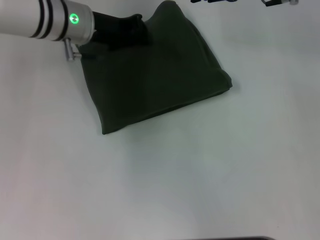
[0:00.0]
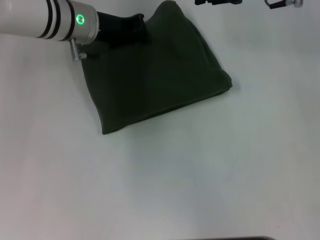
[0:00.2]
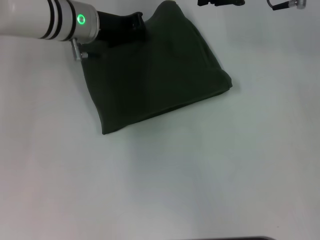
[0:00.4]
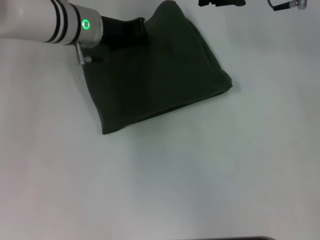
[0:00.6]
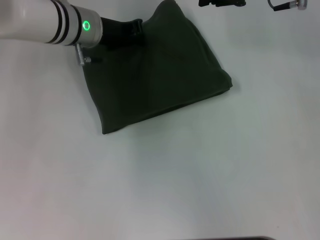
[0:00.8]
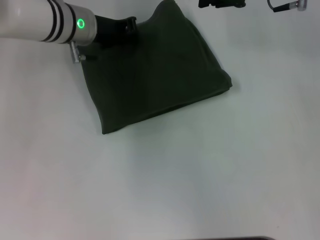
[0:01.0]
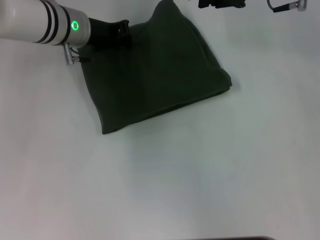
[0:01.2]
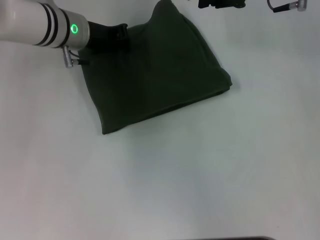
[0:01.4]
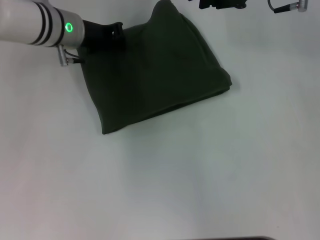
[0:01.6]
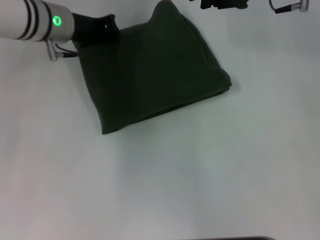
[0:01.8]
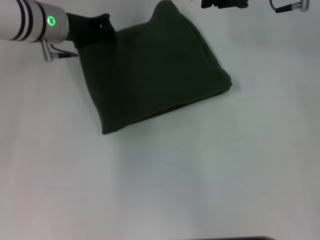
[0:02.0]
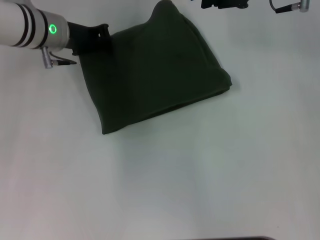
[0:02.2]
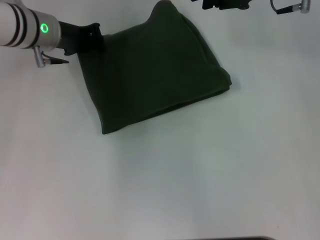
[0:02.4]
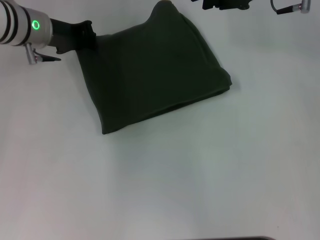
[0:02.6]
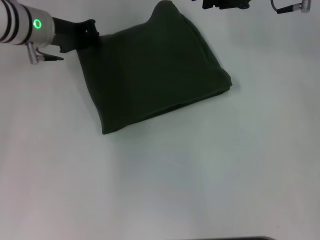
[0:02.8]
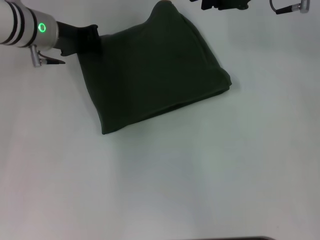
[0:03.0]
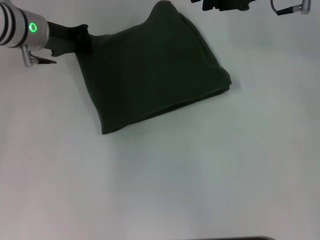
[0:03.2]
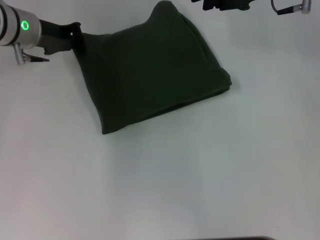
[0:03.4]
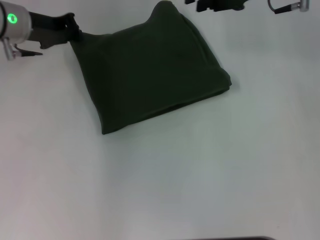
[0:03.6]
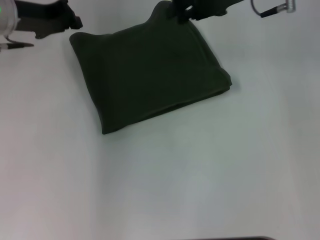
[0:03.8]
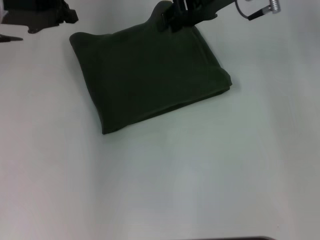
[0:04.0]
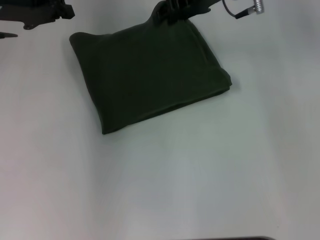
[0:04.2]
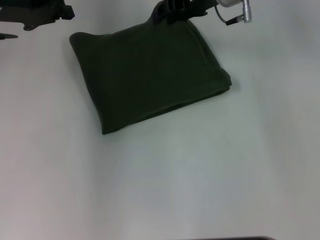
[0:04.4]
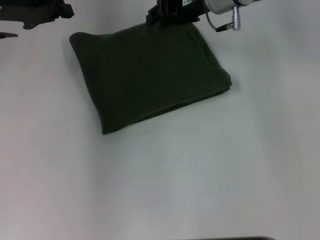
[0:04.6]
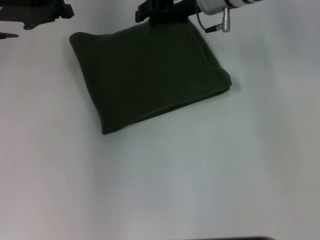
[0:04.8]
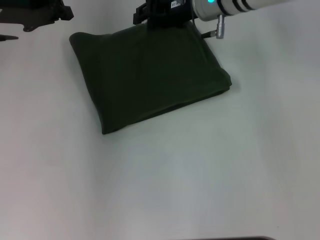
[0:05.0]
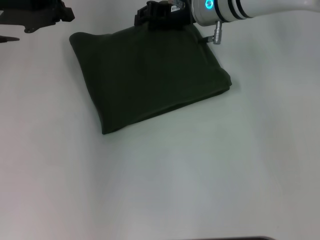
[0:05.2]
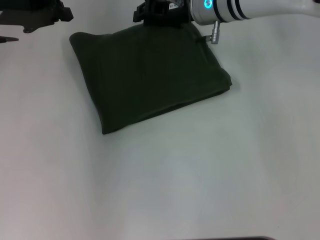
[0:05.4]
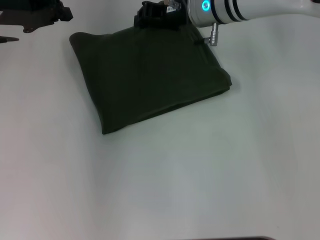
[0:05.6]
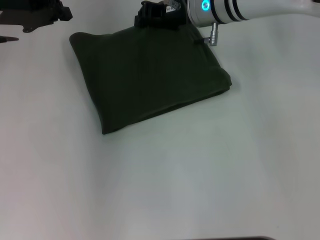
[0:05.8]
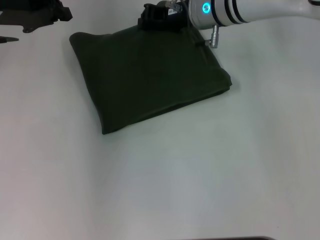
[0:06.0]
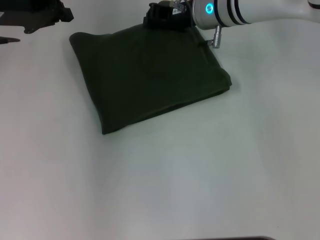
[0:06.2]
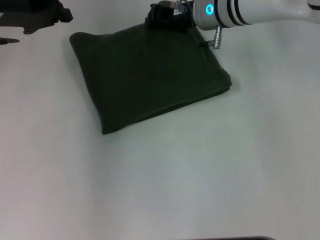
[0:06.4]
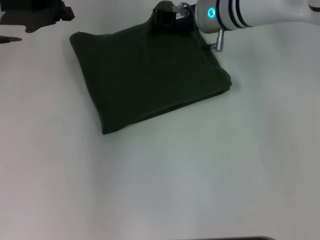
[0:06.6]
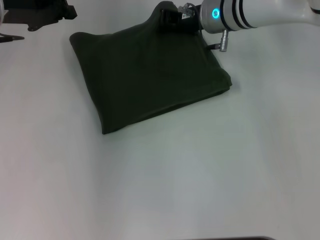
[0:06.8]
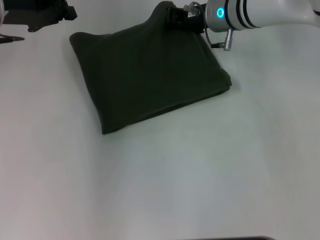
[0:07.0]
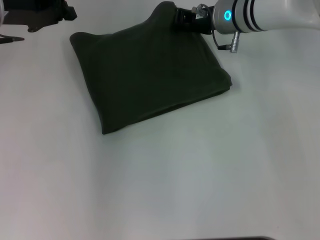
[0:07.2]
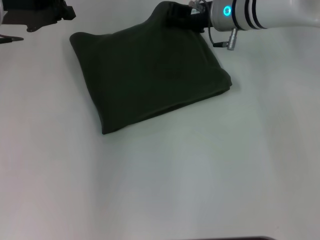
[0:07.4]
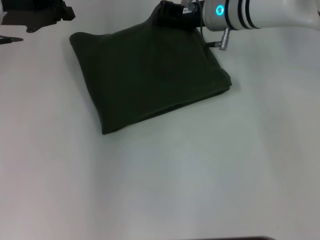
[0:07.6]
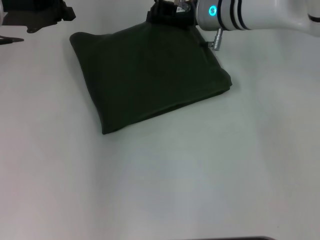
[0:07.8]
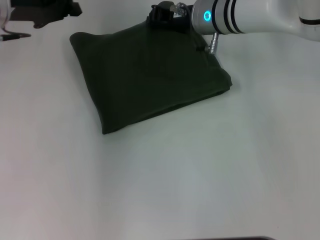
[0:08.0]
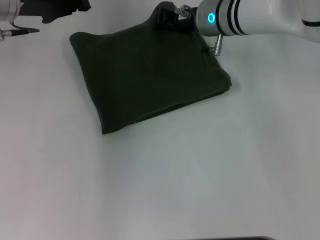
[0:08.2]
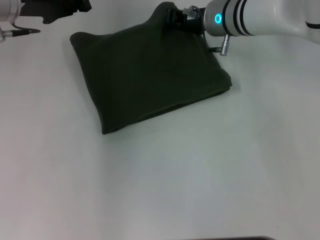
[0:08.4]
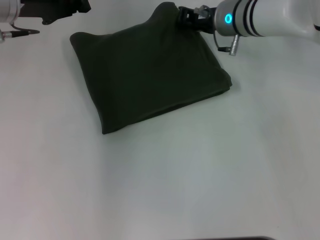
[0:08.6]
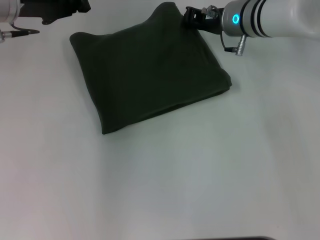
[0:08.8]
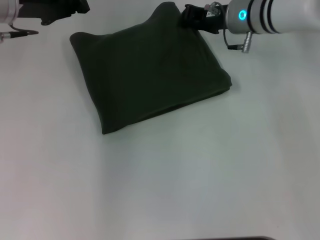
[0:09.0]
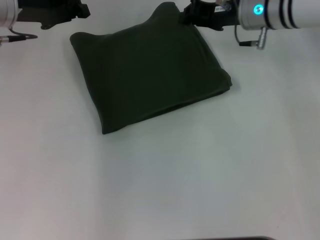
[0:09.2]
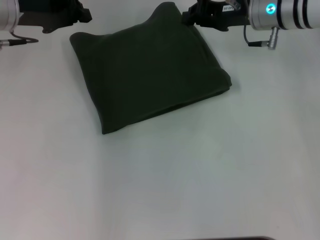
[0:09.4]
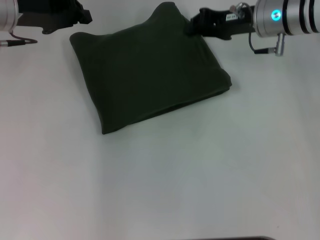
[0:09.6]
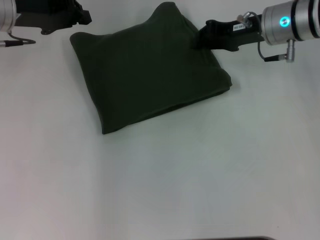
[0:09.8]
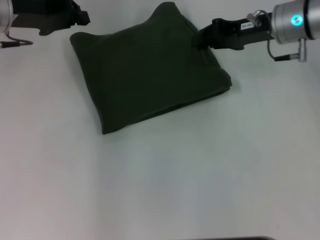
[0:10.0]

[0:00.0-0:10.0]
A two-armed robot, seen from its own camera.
0:00.0 to 0:01.4: There are only small adjustments of the grippers.
0:01.4 to 0:02.8: The grippers make only small movements.
0:02.8 to 0:04.2: The right gripper shifts about 10 cm to the left; the left gripper moves upward and to the left, about 10 cm.
0:04.2 to 0:05.8: The right gripper moves downward, approximately 5 cm.
0:05.8 to 0:08.6: The grippers stay close to where they were, moving slightly.
0:08.6 to 0:10.0: The right gripper is displaced to the right by about 10 cm.

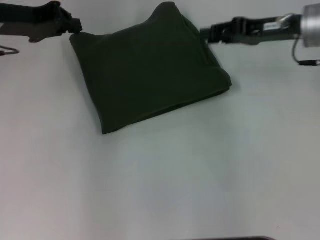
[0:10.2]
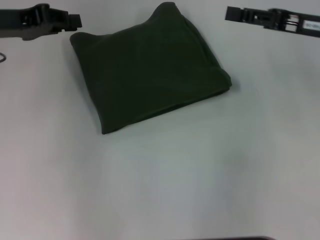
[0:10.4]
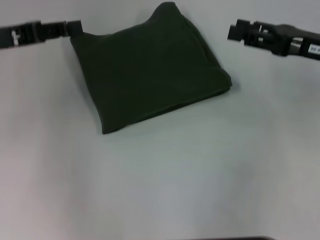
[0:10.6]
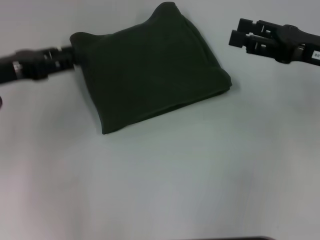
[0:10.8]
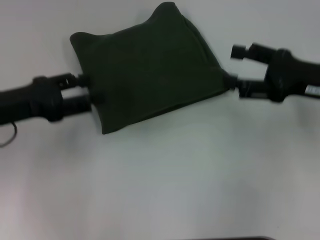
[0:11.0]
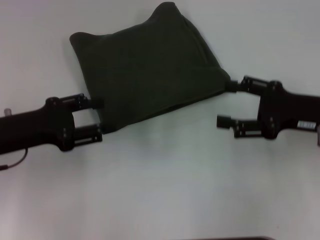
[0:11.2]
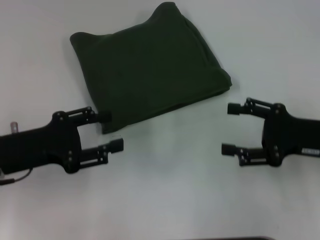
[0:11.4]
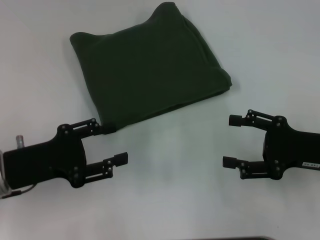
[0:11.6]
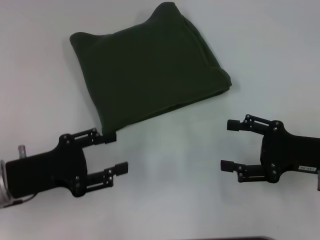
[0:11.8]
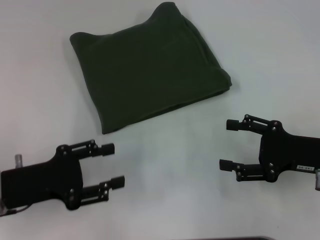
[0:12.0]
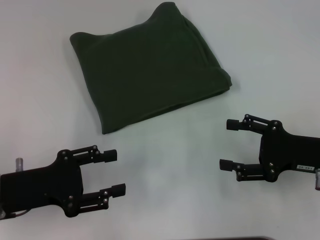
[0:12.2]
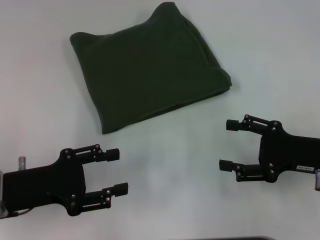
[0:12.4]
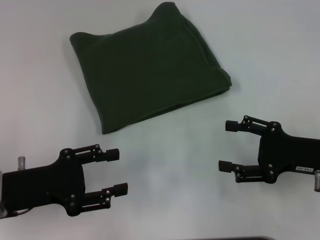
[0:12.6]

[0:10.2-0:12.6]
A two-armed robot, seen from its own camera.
0:10.2 to 0:11.4: The two grippers go about 15 cm backward and downward. The left gripper opens up. The right gripper opens its fingers.

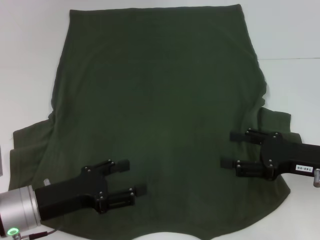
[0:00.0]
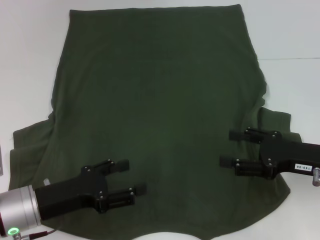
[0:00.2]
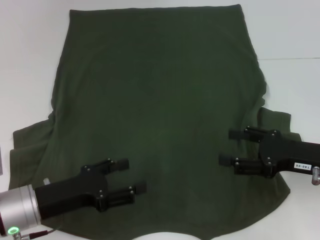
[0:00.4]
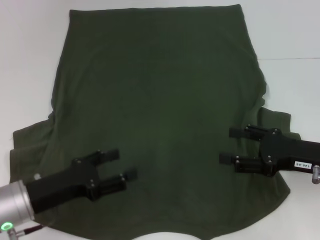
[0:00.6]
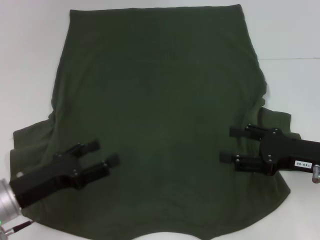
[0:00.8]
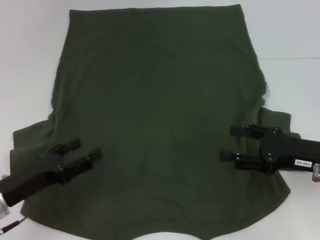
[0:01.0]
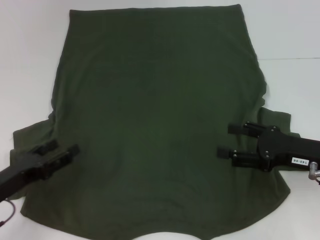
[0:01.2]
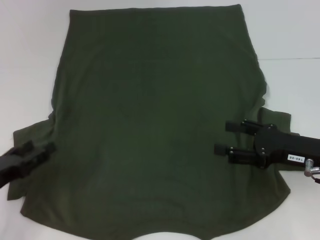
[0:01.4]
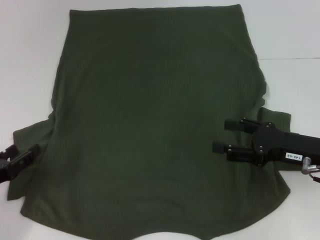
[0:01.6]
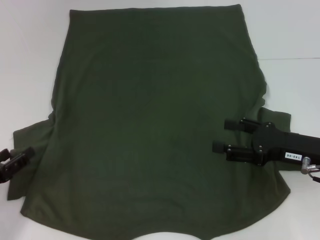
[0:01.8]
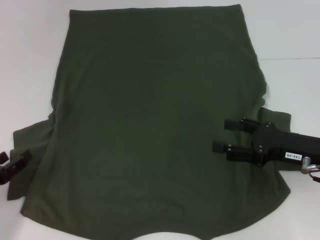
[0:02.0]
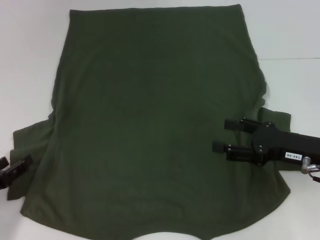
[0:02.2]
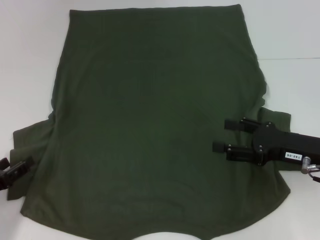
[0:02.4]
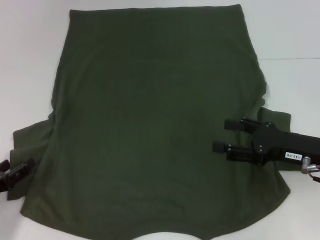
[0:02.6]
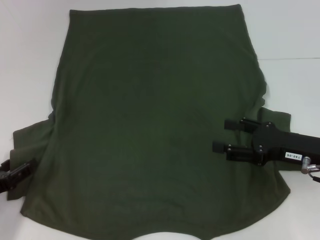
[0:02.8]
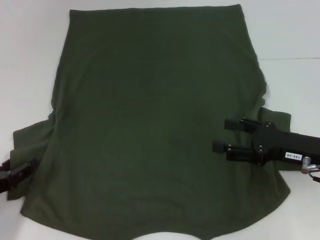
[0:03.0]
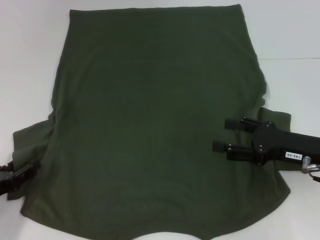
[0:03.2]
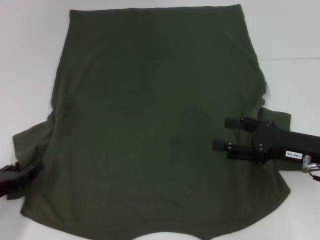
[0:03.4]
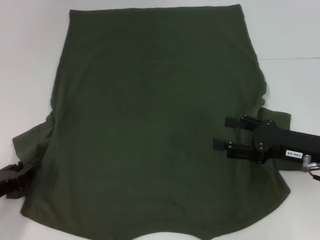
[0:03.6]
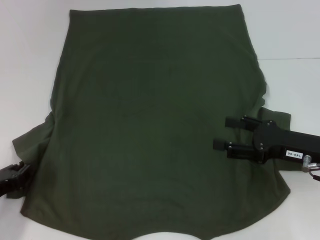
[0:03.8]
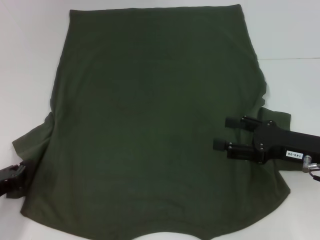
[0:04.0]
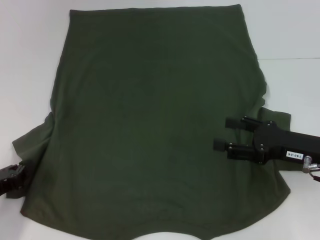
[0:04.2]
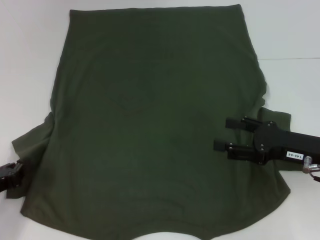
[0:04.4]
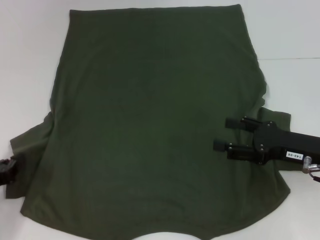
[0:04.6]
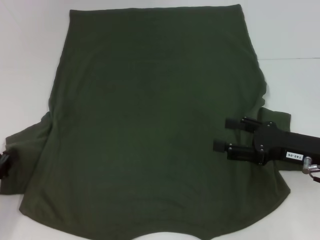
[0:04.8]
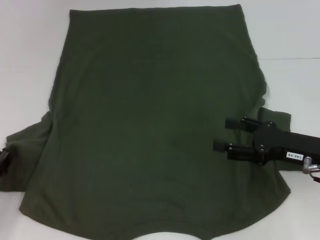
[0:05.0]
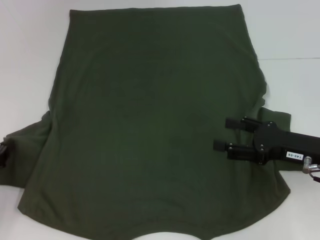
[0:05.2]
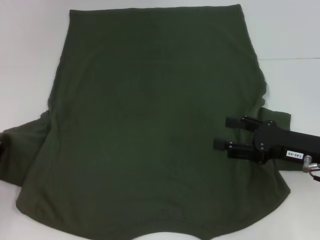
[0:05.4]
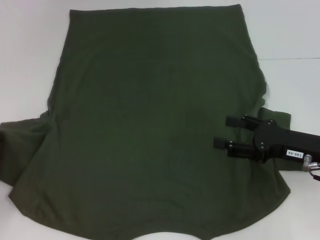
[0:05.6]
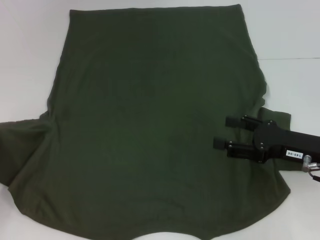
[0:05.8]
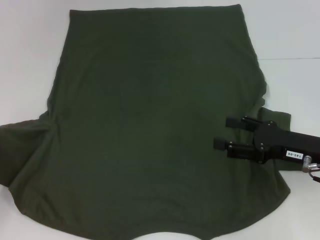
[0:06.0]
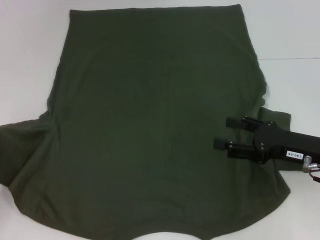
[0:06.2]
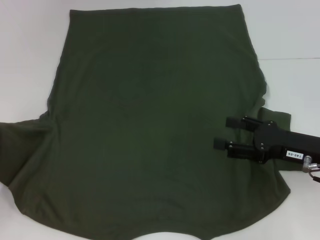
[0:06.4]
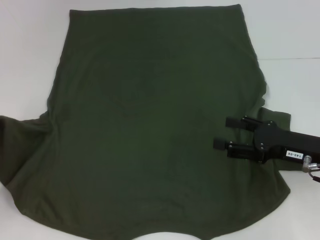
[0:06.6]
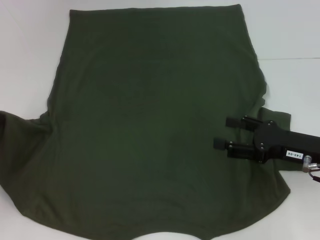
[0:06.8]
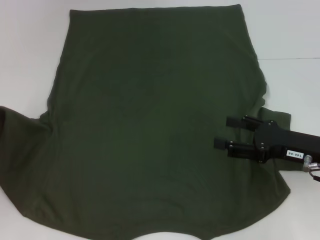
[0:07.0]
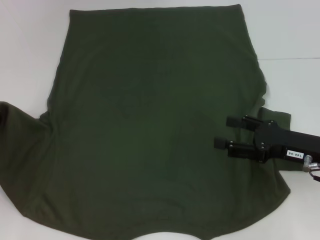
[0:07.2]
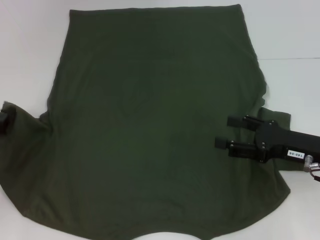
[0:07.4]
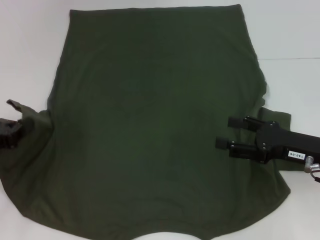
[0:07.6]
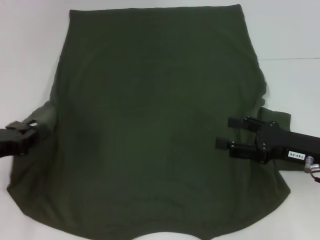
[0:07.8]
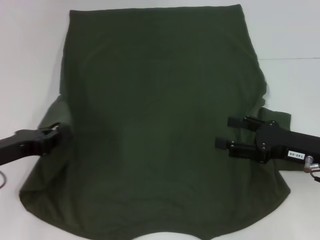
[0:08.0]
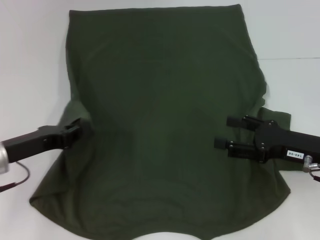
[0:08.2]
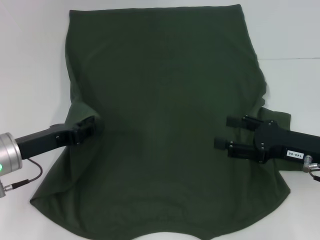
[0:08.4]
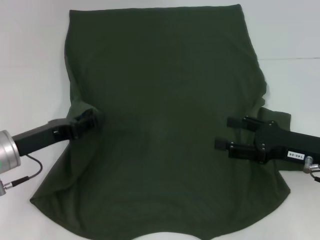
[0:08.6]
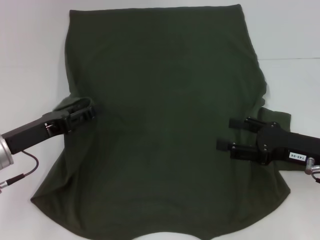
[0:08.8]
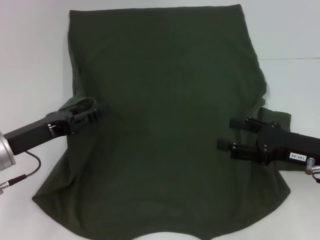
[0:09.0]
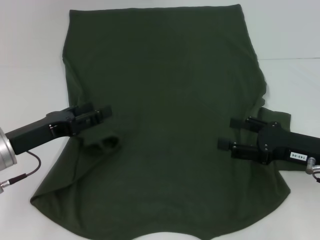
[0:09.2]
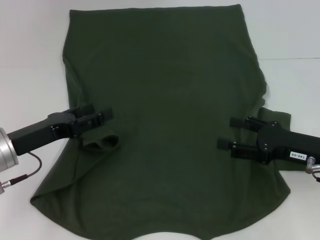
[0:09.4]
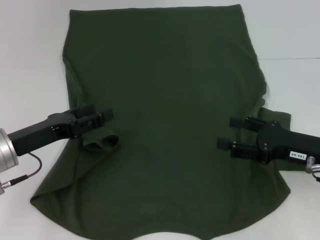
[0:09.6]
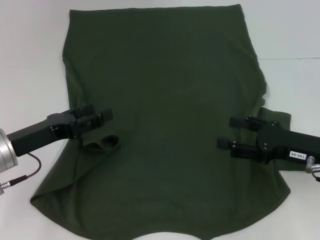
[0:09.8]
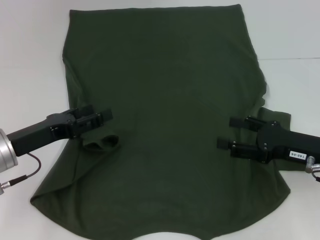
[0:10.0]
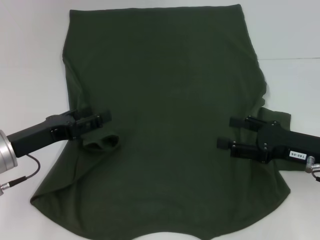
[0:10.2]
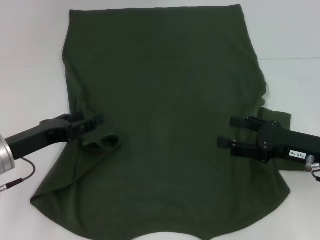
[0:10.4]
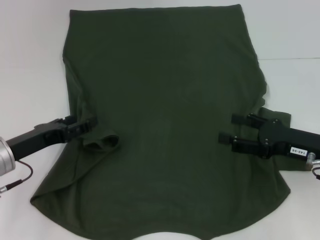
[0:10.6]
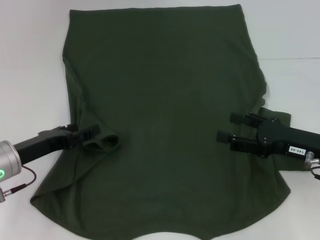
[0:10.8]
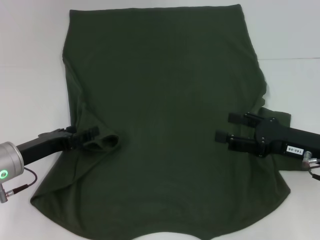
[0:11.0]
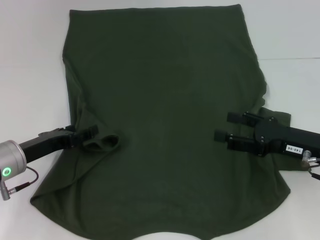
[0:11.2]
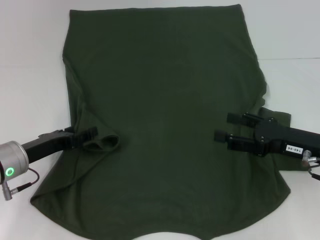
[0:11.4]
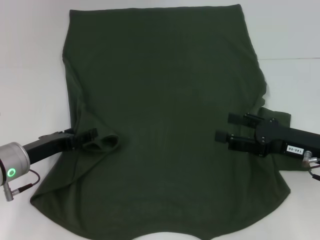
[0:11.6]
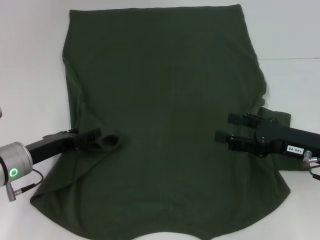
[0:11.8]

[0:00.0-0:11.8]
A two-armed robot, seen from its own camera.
0:00.0 to 0:01.4: The left gripper heads to the left, covering approximately 10 cm.
0:01.4 to 0:03.0: The grippers make only small movements.
0:03.0 to 0:04.4: The left gripper closes its fingers.
0:04.4 to 0:06.0: The left gripper changes place by approximately 5 cm.
0:06.0 to 0:07.4: The grippers make only small movements.
0:07.4 to 0:08.8: The left gripper goes some 10 cm to the right, and opens up.
0:08.8 to 0:10.4: The left gripper opens its fingers.
0:10.4 to 0:11.8: There are only small adjustments of the grippers.
